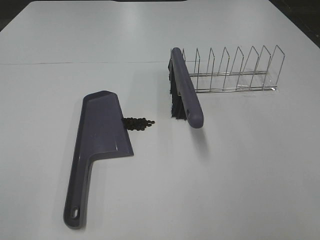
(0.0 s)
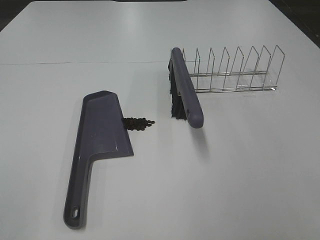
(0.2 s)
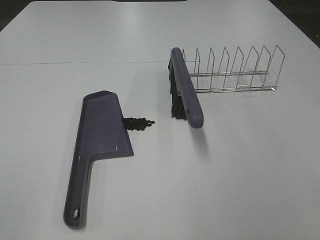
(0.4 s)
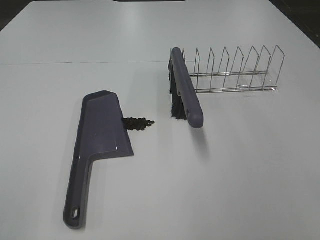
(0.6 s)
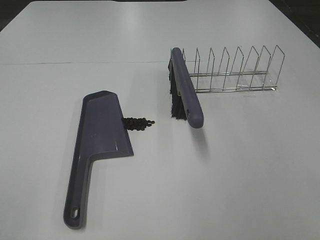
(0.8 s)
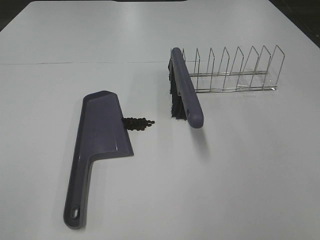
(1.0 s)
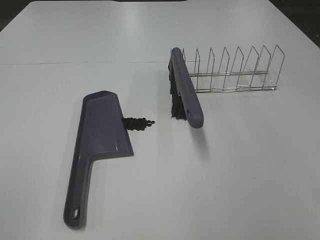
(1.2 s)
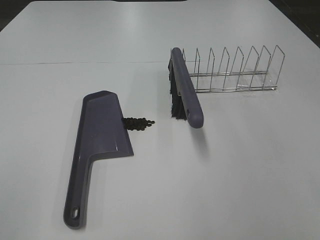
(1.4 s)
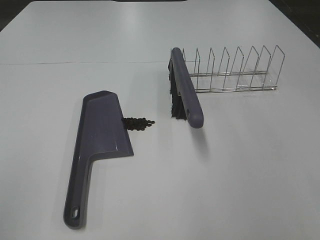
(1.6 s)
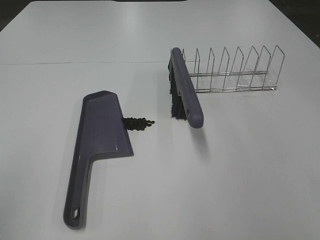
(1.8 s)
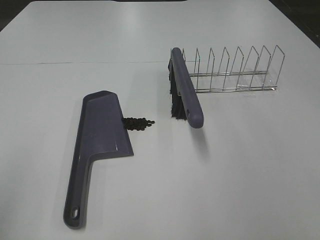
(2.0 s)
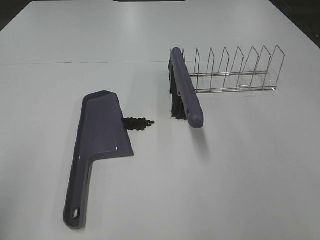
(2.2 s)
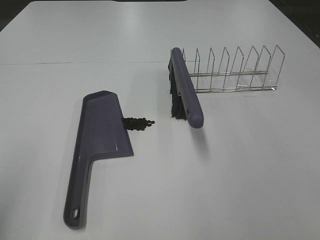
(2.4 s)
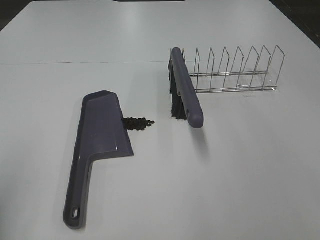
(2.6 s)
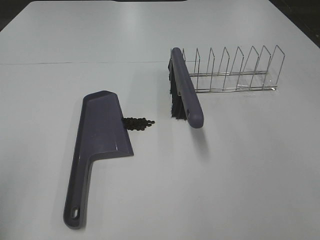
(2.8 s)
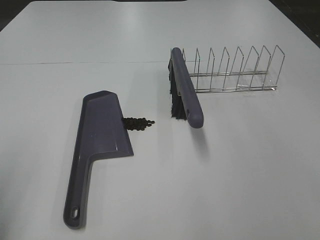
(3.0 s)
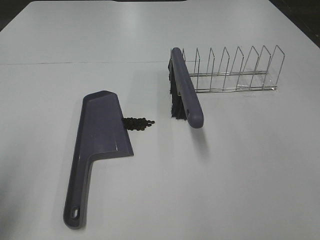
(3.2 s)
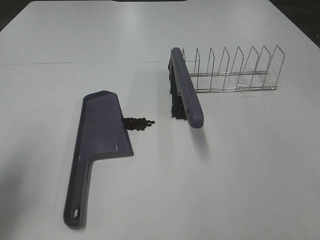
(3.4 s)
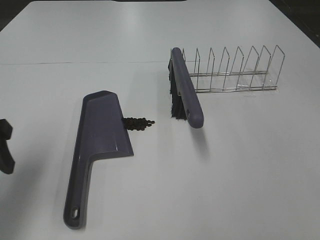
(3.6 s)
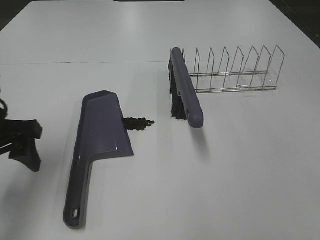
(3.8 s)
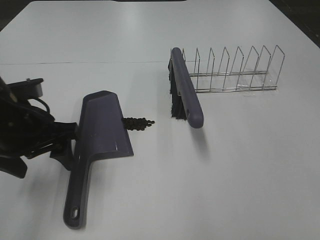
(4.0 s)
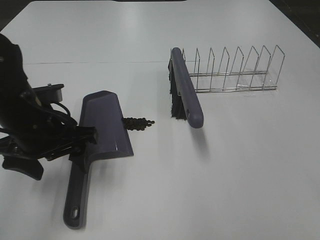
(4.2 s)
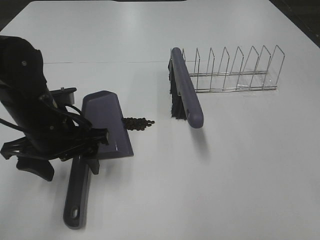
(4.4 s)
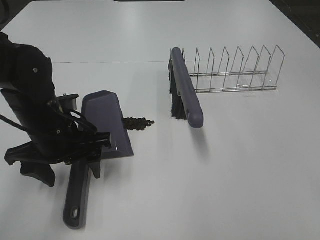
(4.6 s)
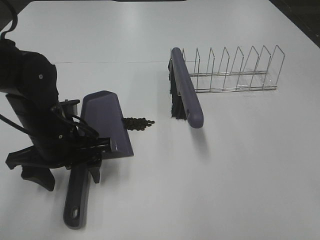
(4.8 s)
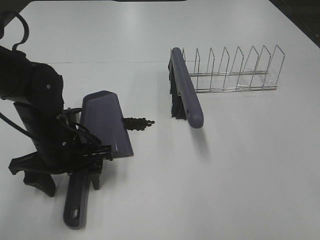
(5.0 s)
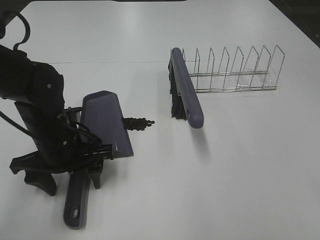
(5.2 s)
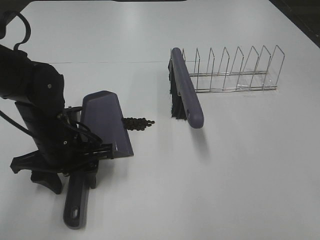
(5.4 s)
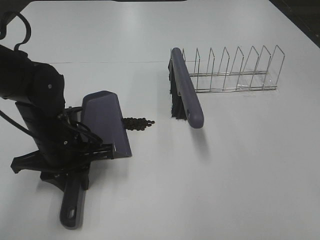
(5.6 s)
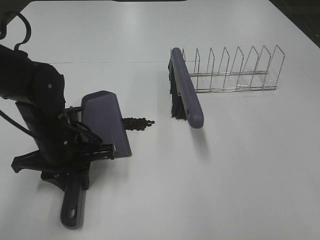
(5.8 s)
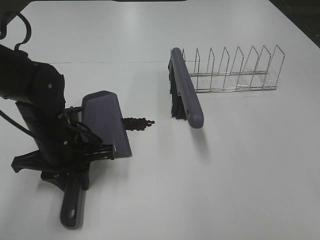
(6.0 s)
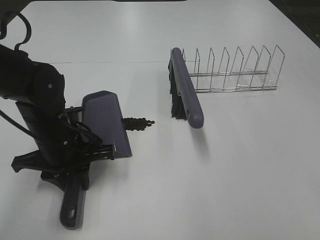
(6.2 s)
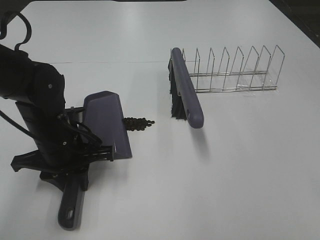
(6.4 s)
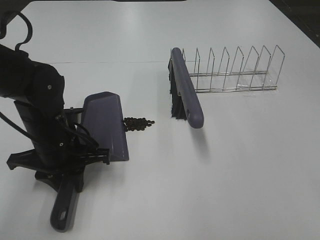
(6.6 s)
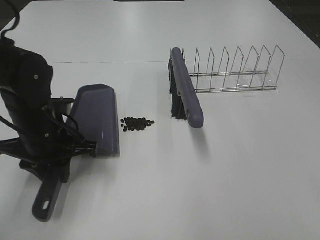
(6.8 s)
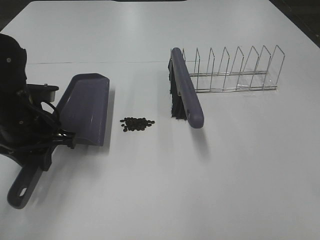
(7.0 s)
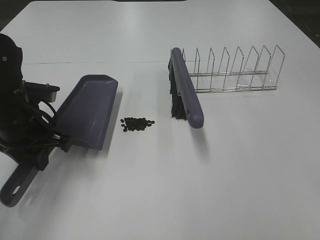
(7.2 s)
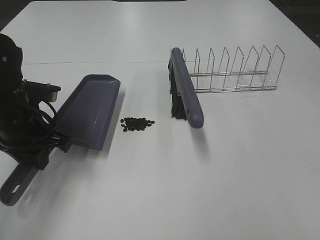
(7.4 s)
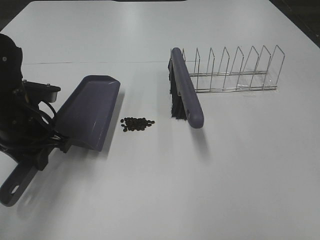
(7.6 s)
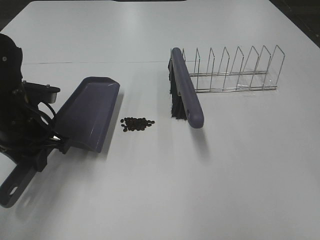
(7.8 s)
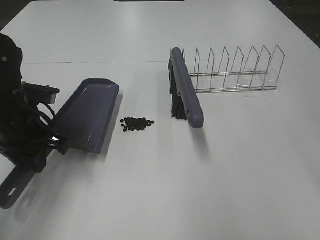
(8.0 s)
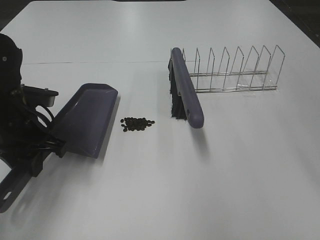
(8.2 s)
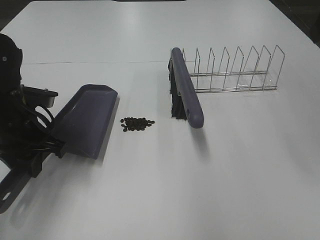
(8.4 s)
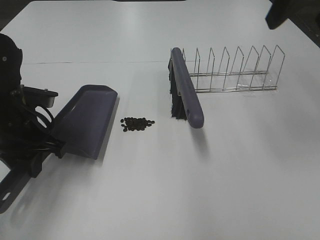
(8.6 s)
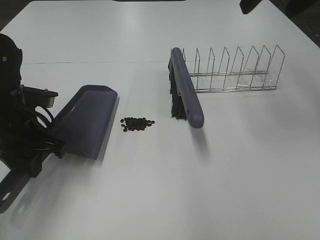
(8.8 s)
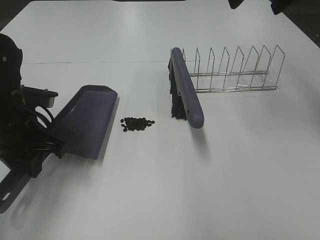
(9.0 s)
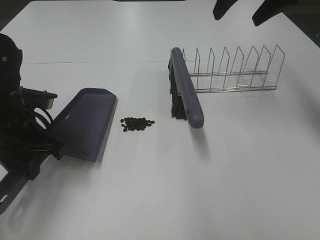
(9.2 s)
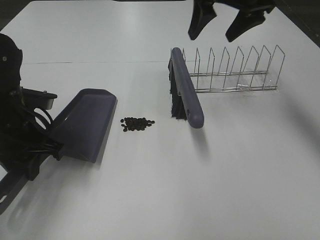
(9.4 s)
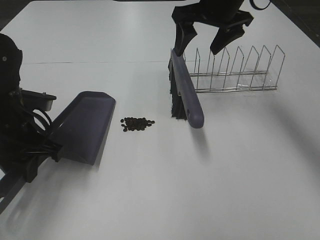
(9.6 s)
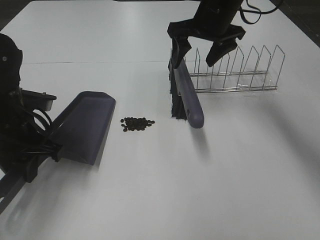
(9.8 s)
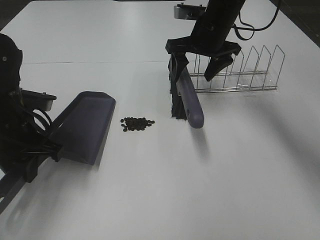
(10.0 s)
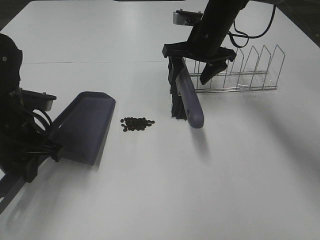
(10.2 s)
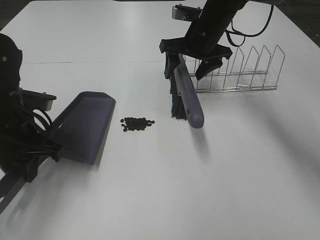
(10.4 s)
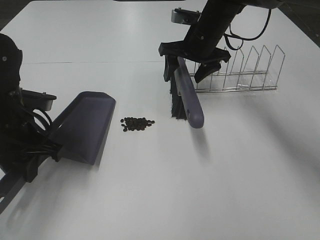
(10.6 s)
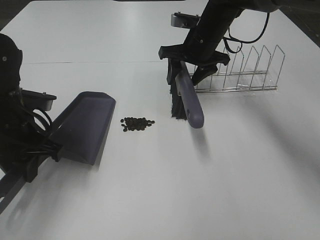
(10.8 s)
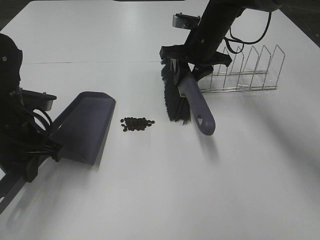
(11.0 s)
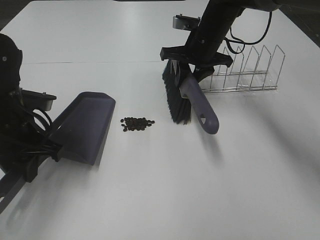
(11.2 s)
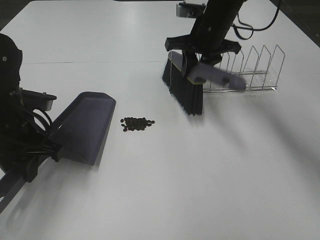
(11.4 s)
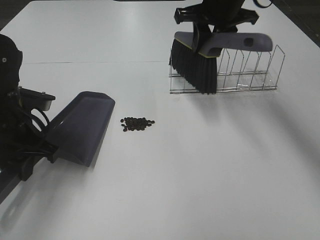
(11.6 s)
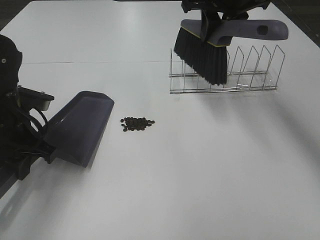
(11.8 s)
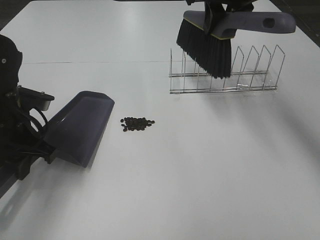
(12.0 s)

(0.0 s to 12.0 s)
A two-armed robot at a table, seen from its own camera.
Task of the whole recording: Sweep Coffee Bean.
Step, 0.0 s - 6.0 s: Left hand: grab the dustpan.
Step, 7.2 s - 11.0 s: Right hand:grab the broom.
3.0 s - 4.4 s: The left gripper is displaced to the right, forward and downward by some 25 cm.
4.4 s - 6.0 s: The left gripper closes its fingers.
6.0 s - 7.6 s: The right gripper heads upward and forward, covering approximately 10 cm. Meanwhile the left gripper moves to the left, about 5 cm.
7.6 s - 9.0 s: The right gripper goes roughly 30 cm forward.
9.0 s - 10.4 s: The right gripper travels downward, to the left and forward by about 20 cm.
10.4 s - 12.0 s: The right gripper heads upward, covering approximately 15 cm, and closes.

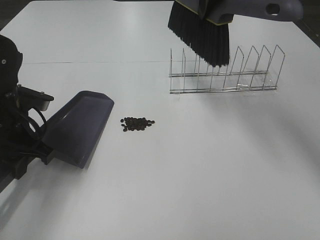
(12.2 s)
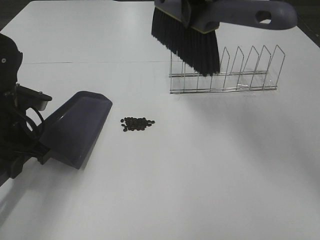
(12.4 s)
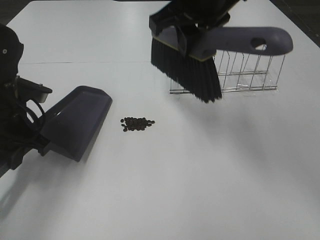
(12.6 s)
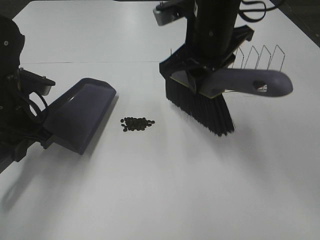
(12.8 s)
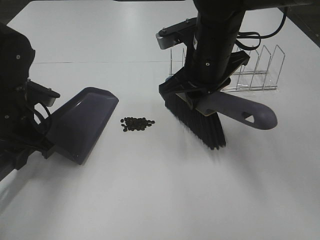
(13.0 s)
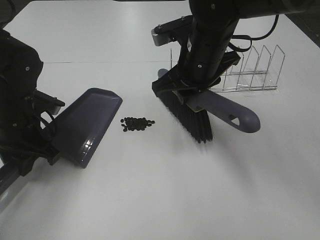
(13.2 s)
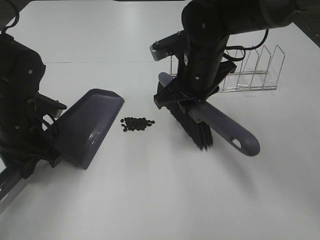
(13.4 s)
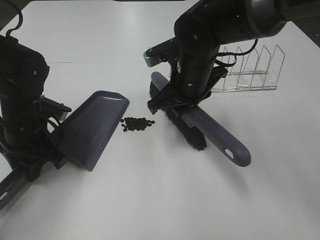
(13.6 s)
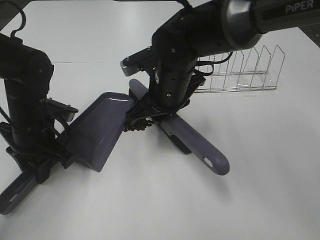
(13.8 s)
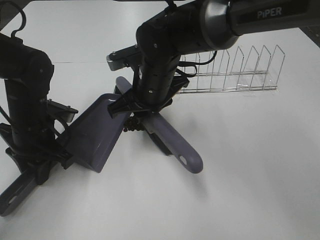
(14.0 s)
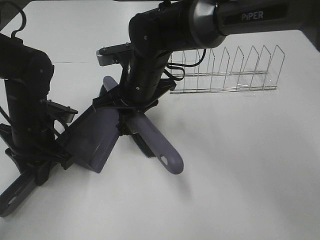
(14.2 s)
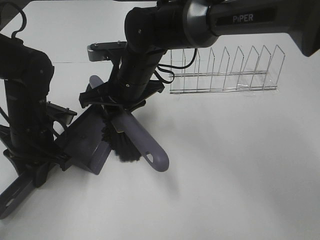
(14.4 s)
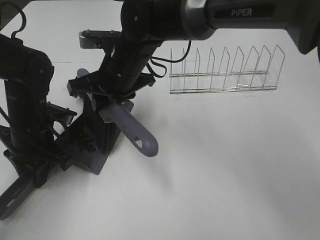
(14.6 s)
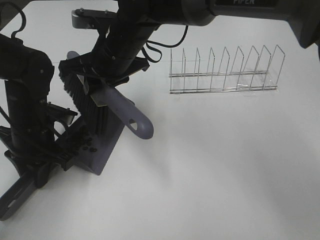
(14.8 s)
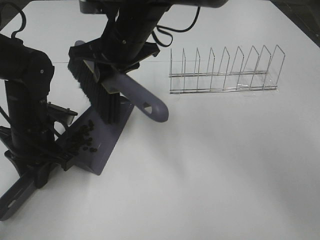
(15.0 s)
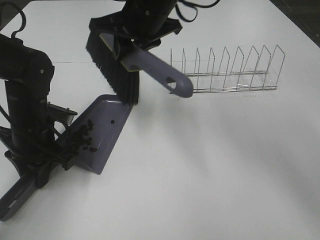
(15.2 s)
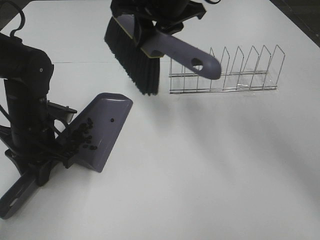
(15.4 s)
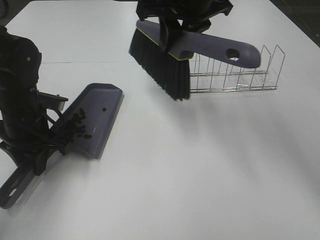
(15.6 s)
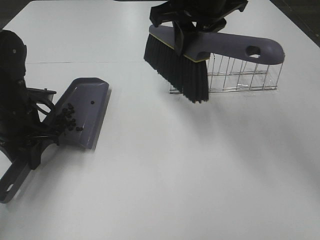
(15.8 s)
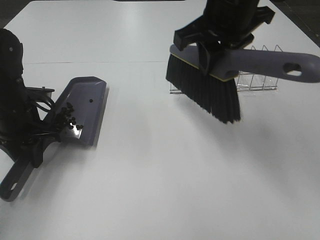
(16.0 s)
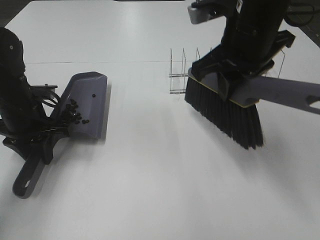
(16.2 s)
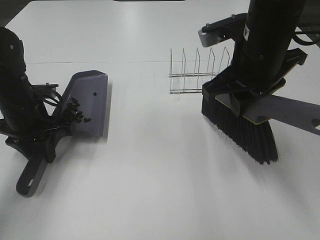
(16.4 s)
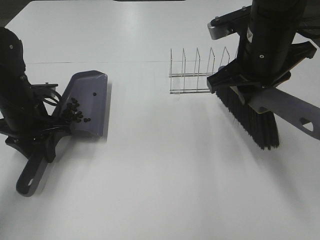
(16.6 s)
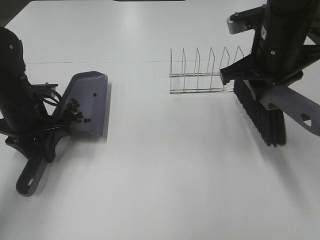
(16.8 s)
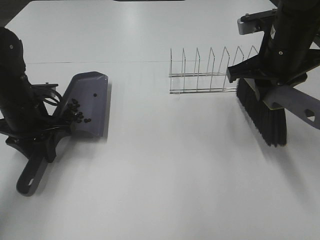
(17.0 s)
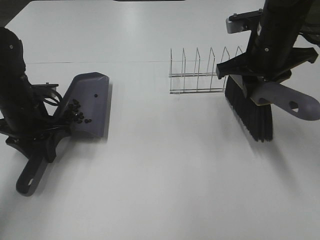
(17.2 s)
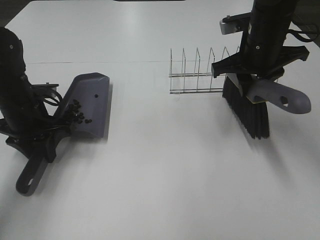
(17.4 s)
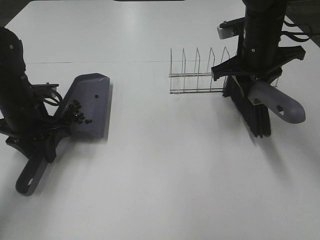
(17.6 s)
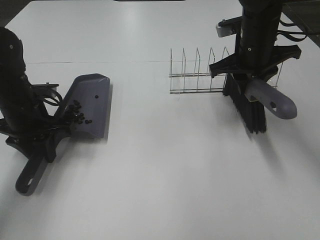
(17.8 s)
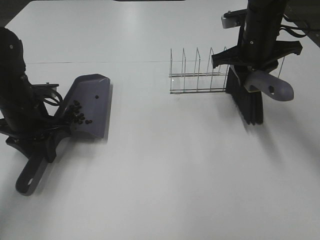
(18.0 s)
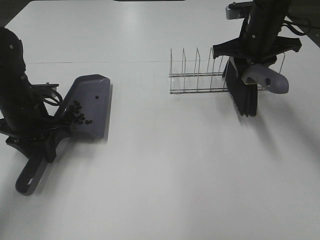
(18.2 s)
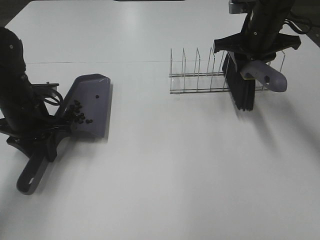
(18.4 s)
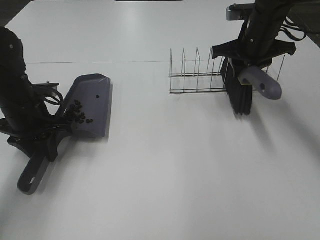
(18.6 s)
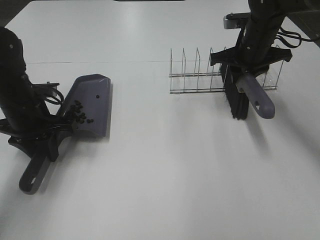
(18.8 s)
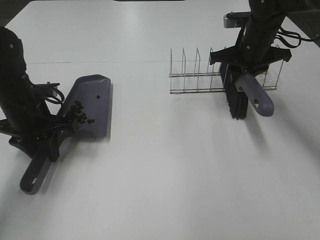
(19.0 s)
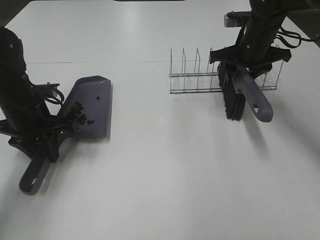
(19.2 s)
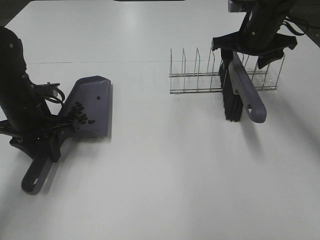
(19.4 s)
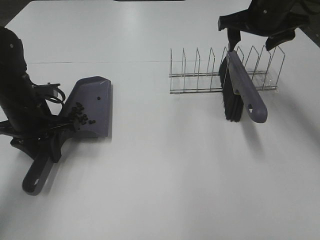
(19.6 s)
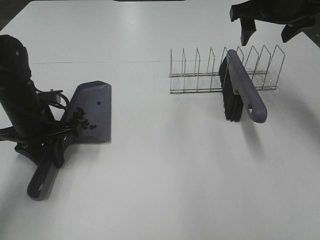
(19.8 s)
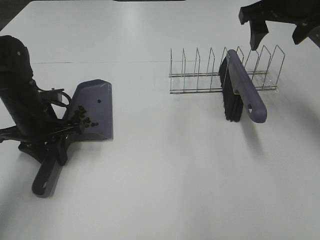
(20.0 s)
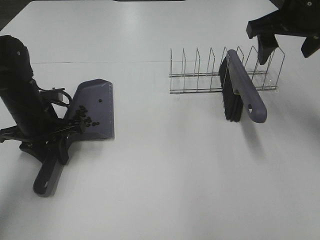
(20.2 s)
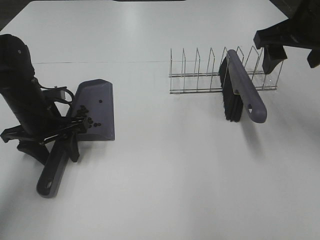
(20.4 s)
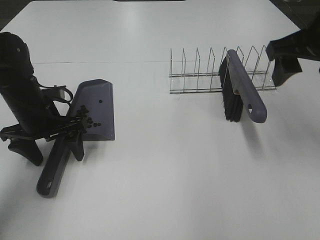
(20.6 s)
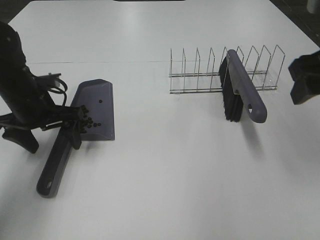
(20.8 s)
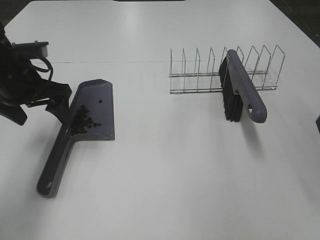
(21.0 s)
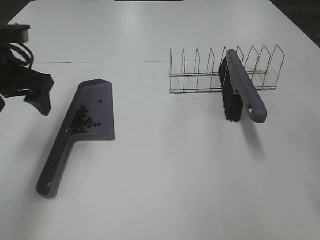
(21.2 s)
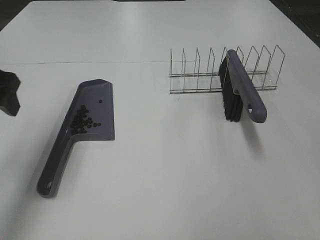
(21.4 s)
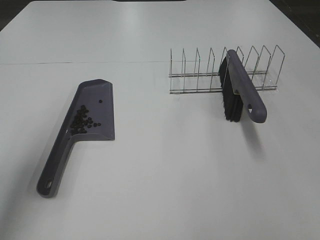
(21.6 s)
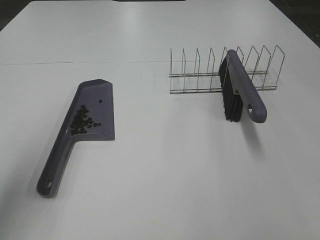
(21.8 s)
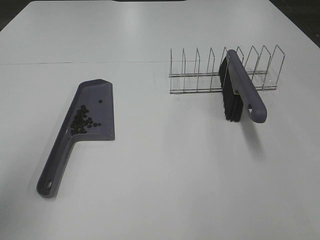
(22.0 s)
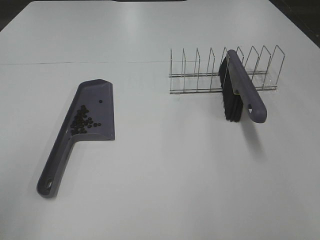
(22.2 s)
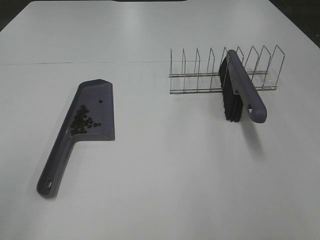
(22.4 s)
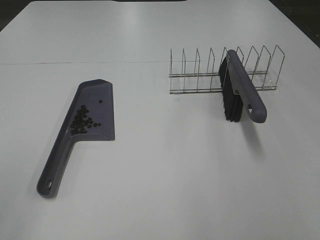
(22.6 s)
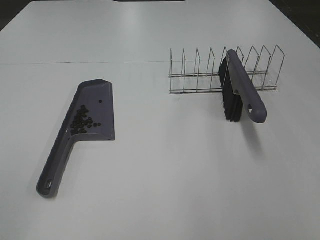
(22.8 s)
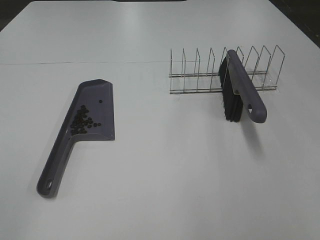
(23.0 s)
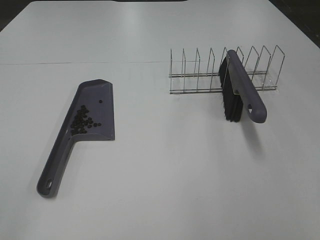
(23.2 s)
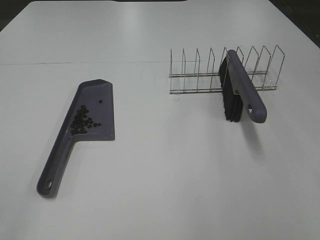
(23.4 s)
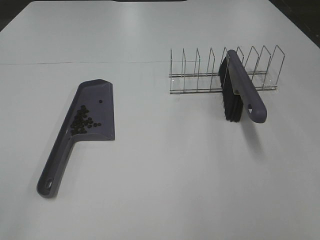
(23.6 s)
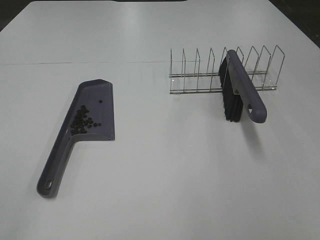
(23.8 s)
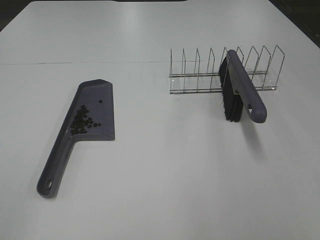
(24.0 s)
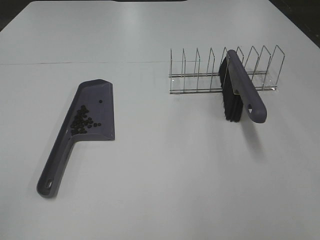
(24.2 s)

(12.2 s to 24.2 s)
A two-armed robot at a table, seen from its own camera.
Task of the whole recording: Sweep Coffee Bean.
Step, 12.2 s - 14.8 s: Right hand:sweep the coffee beans into the dustpan.
Step, 15.0 s - 19.4 s: Right hand:place the broom on the rack.
Step, 19.6 s - 20.6 s: Left hand:place the dustpan on the table.
12.2 s - 13.8 s: The right gripper travels downward and to the left by some 20 cm; the left gripper shifts by some 5 cm.
13.8 s - 15.2 s: The right gripper is displaced upward and forward by approximately 10 cm.
15.2 s - 16.6 s: The right gripper heads to the right and backward, covering approximately 15 cm.
16.6 s - 18.2 s: The right gripper moves forward and to the right, some 15 cm.
18.2 s - 19.8 s: The right gripper shifts about 10 cm upward, and opens up.
19.8 s - 21.2 s: The left gripper moves upward, some 10 cm, and opens its fingers. Meanwhile the right gripper goes some 30 cm backward.
21.2 s - 22.6 s: The left gripper is displaced backward by roughly 30 cm.
